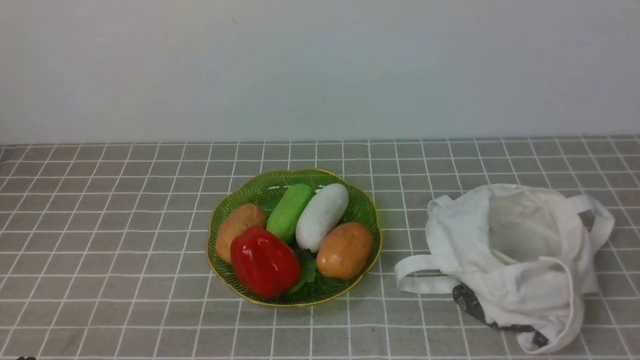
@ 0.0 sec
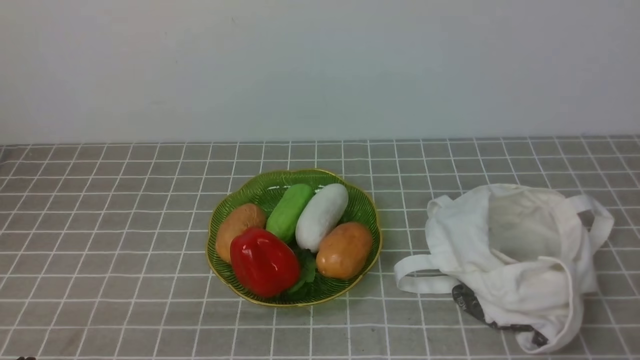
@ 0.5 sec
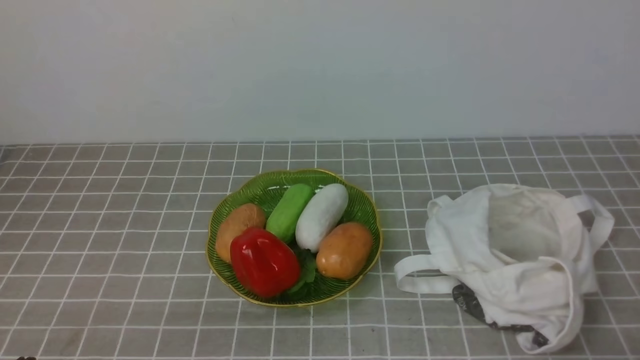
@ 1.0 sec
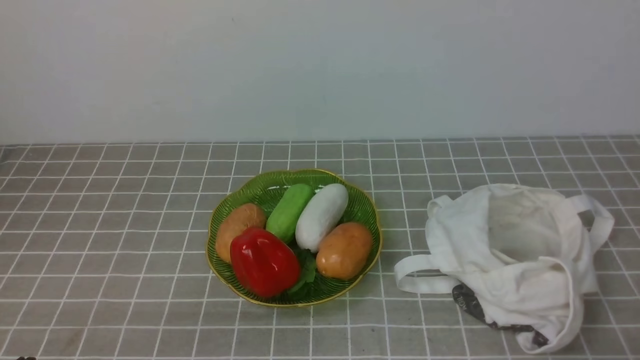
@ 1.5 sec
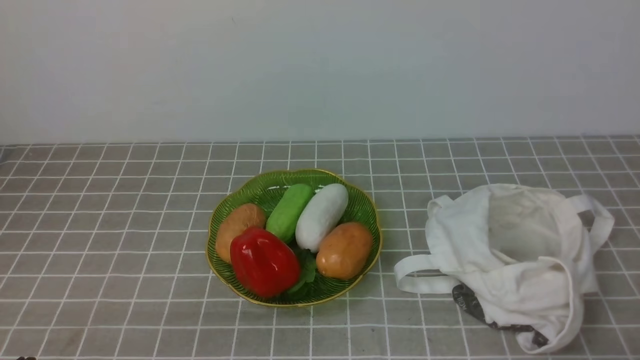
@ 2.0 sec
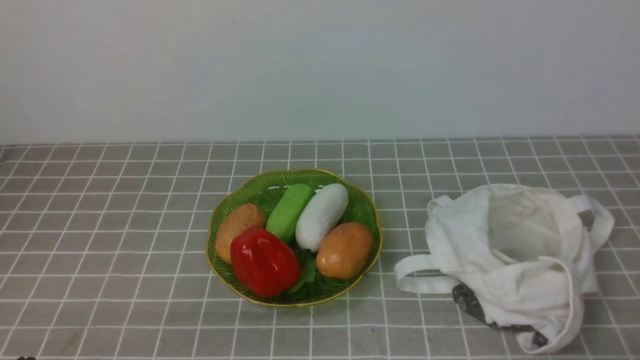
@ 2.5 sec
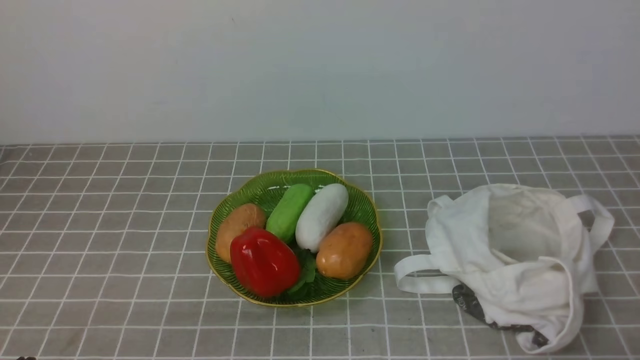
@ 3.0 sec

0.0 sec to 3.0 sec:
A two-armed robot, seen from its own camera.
Task of the whole recording: take vegetables from bag on grey coffee tablecloth place on plate.
1.5 sec to 3.0 sec: The two grippers keep their place.
